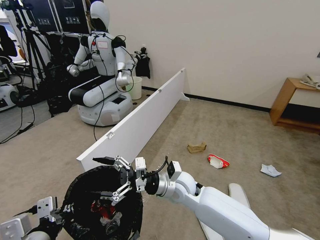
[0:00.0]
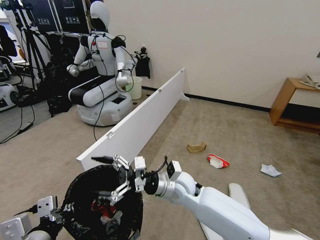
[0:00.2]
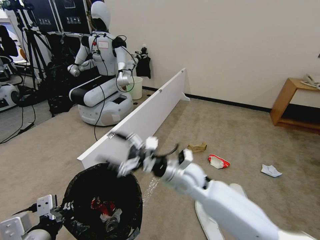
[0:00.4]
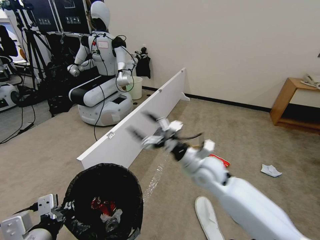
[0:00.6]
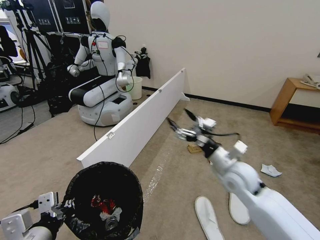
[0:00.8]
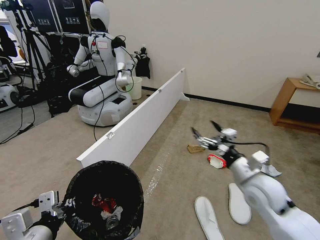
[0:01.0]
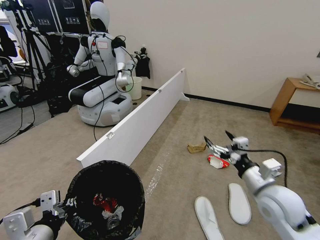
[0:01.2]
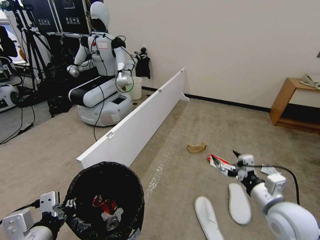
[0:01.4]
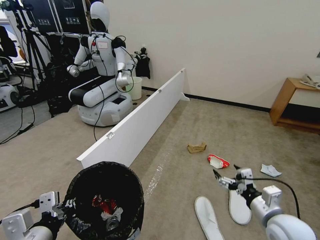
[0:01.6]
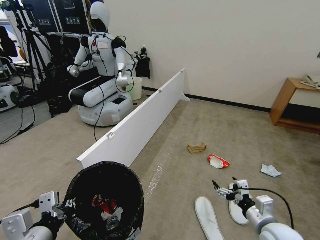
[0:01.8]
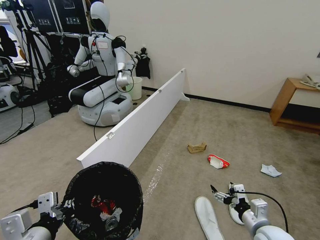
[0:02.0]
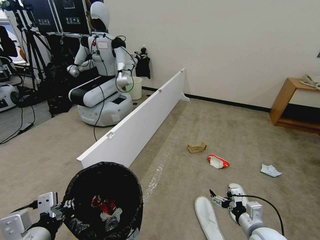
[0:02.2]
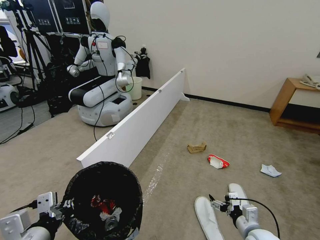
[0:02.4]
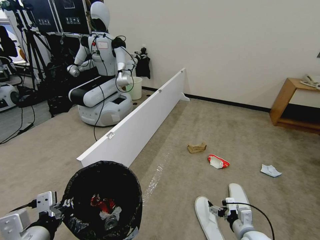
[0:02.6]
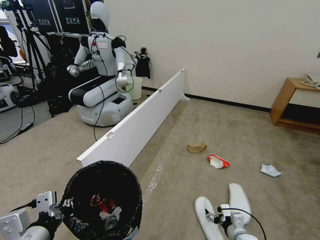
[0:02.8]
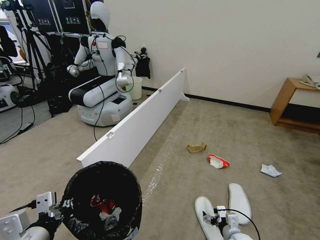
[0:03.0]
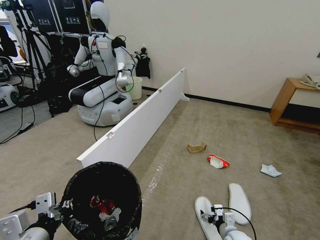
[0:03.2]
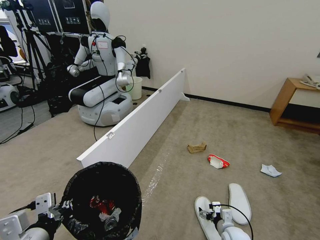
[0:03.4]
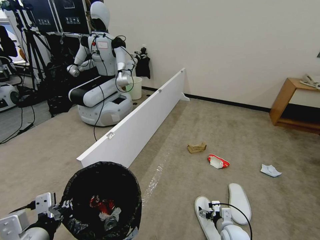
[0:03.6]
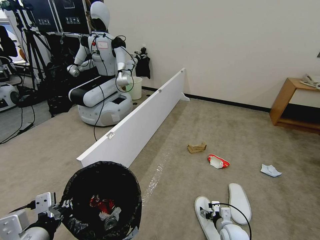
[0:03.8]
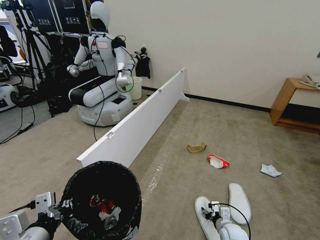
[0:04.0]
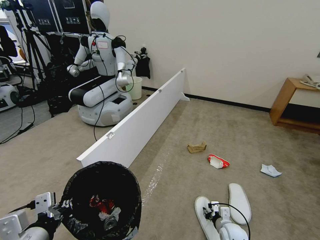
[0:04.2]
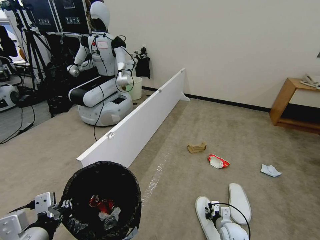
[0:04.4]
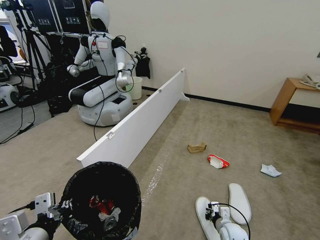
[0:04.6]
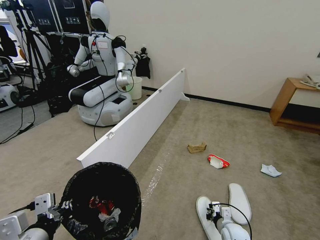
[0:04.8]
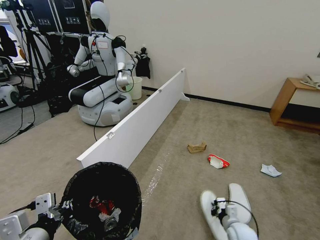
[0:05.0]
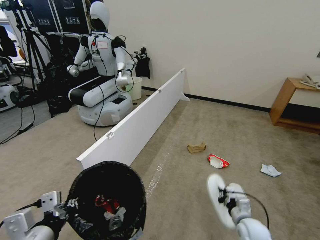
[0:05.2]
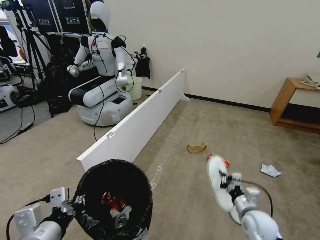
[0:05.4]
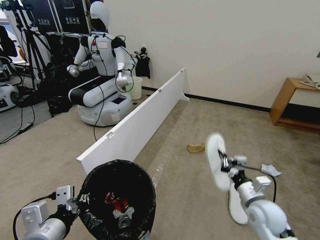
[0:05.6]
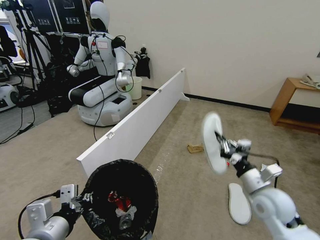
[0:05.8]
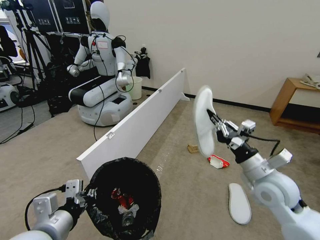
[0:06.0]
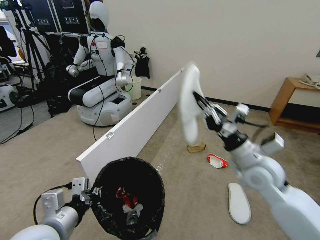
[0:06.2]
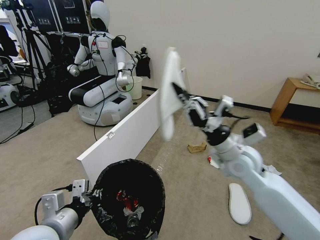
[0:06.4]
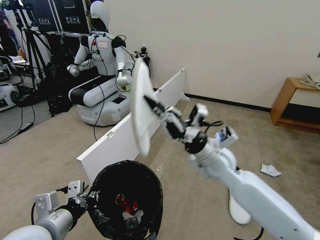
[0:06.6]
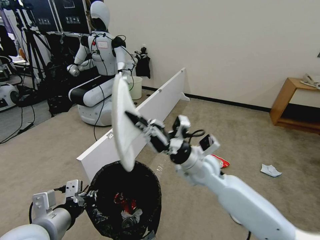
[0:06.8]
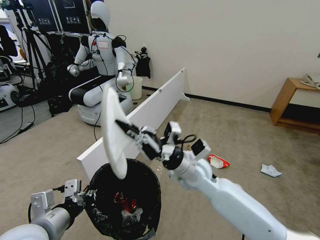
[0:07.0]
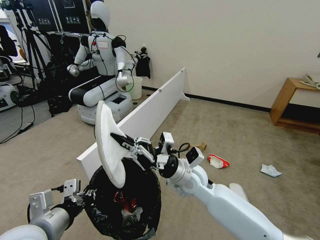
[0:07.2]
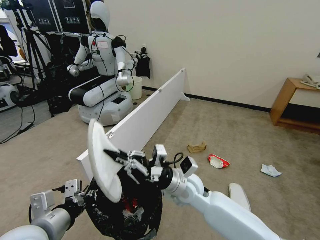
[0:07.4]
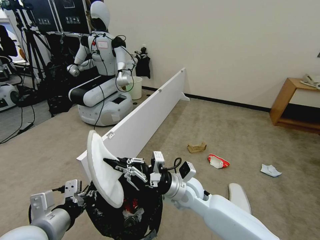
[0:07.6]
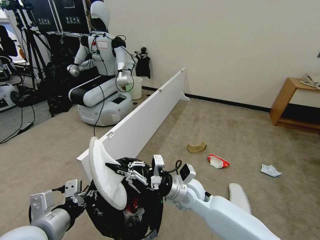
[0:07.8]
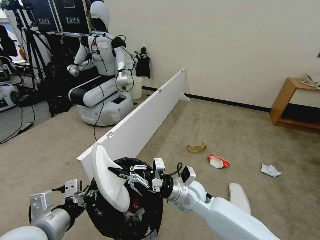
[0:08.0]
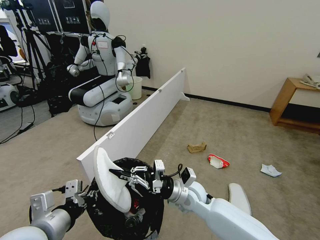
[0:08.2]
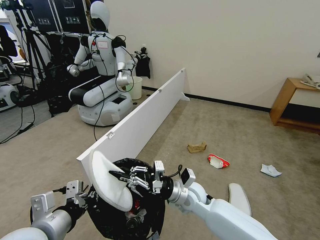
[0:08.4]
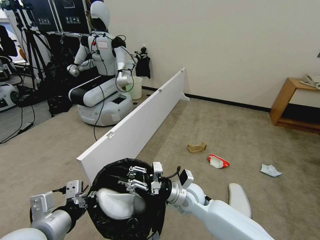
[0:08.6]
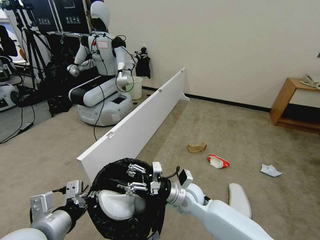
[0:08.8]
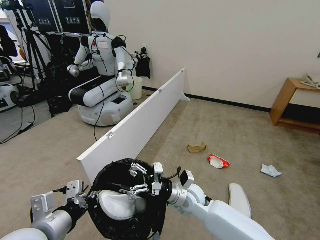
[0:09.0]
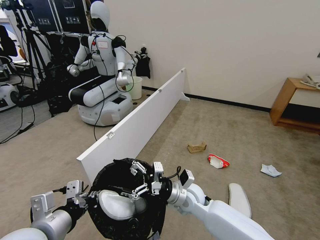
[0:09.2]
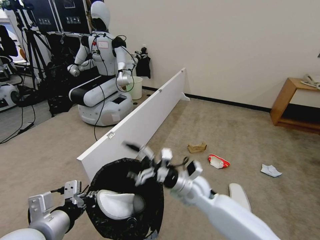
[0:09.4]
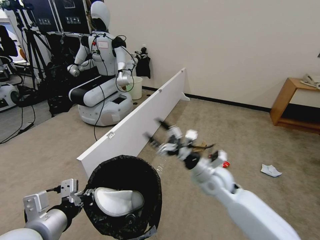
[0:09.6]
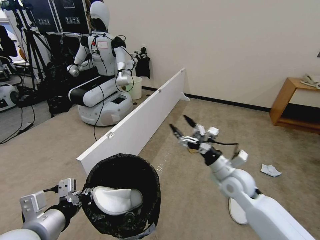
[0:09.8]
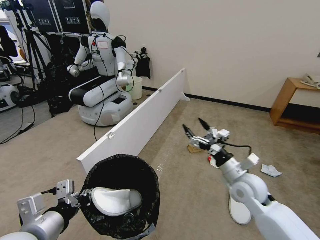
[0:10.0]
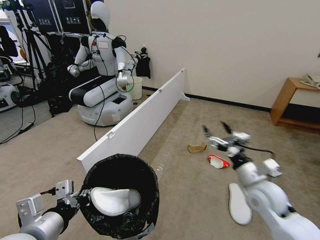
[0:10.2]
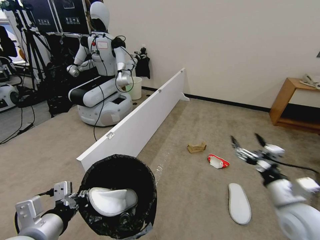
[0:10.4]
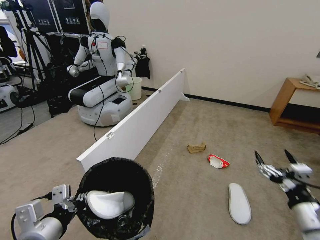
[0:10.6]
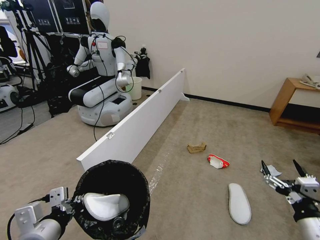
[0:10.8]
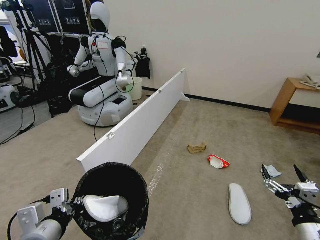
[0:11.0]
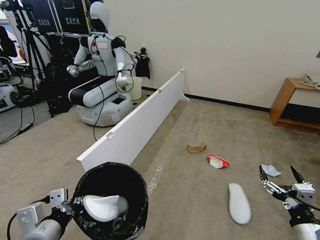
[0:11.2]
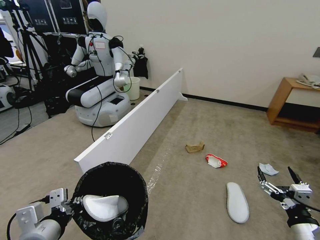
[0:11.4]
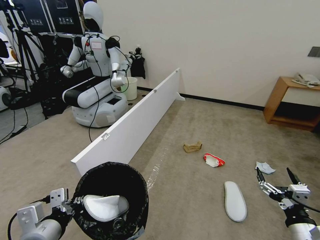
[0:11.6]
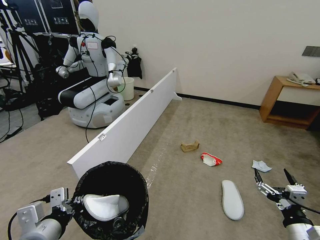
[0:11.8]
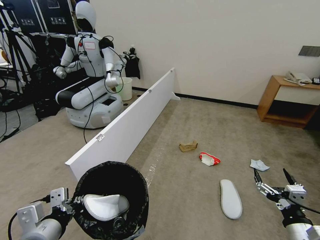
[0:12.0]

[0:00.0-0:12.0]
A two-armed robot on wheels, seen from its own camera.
Task of the whole recording: Pick up the trash bin, then pick up the garbage from the floor and place it into the trash bin.
0:00.0 to 0:01.6: The right gripper travels to the right and backward by some 30 cm.
0:01.6 to 0:03.0: The right gripper goes approximately 20 cm downward.
0:03.0 to 0:04.4: The right gripper shifts by roughly 5 cm, and closes its fingers.
0:04.4 to 0:06.0: The right gripper moves upward, some 35 cm.
0:06.0 to 0:07.6: The right gripper shifts some 25 cm to the left and downward.
0:07.6 to 0:09.0: The right gripper ends up some 5 cm from where it was, and opens.
0:09.0 to 0:10.4: The right gripper shifts some 30 cm to the right and backward.
0:10.4 to 0:12.0: The right gripper travels backward and downward by about 10 cm.

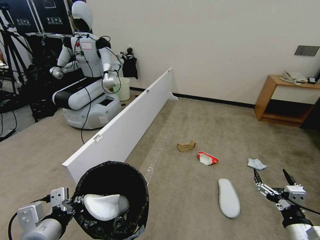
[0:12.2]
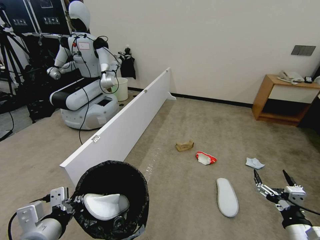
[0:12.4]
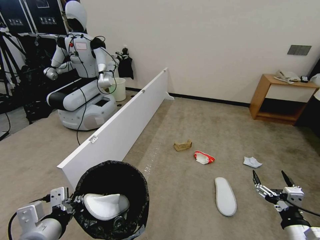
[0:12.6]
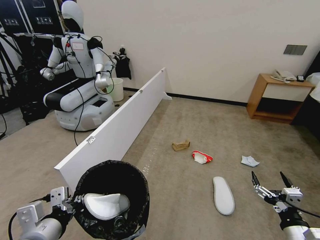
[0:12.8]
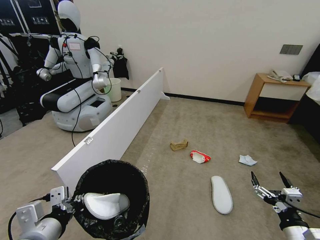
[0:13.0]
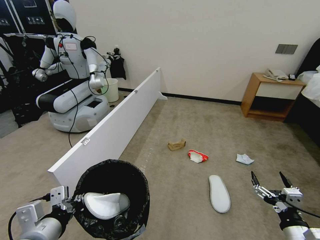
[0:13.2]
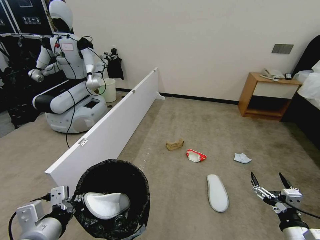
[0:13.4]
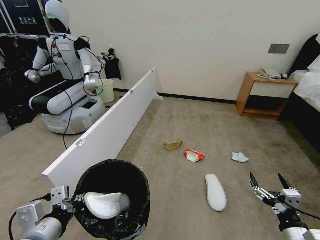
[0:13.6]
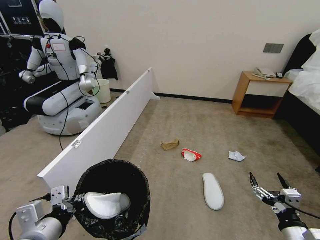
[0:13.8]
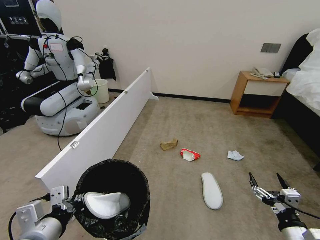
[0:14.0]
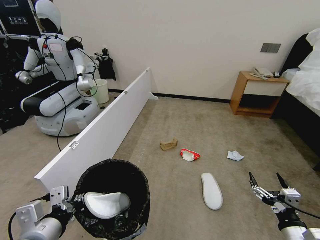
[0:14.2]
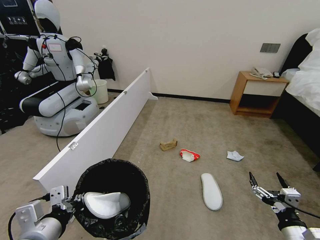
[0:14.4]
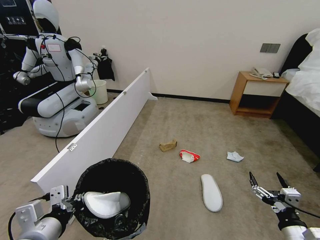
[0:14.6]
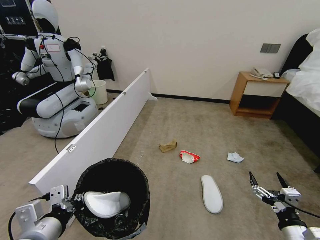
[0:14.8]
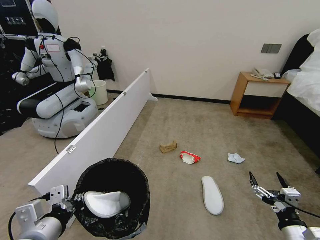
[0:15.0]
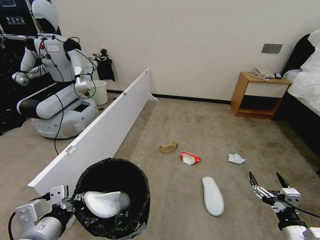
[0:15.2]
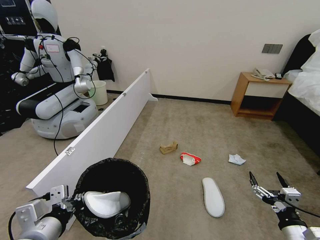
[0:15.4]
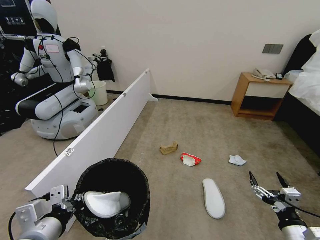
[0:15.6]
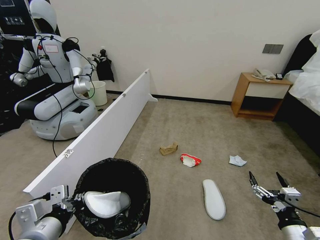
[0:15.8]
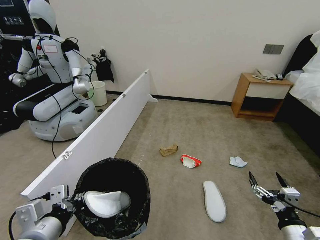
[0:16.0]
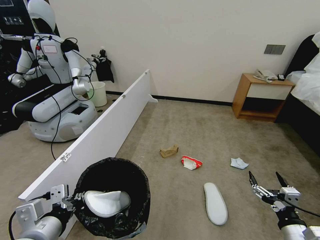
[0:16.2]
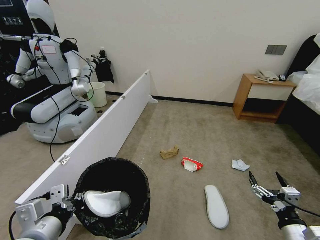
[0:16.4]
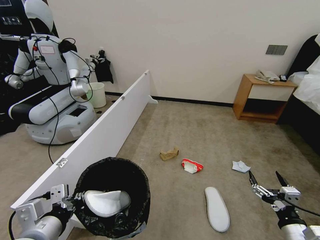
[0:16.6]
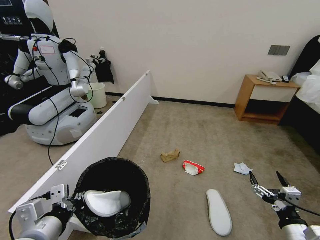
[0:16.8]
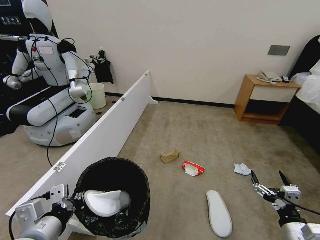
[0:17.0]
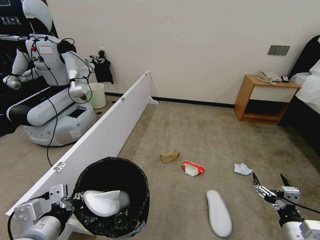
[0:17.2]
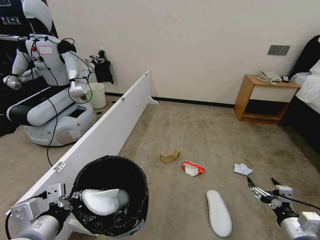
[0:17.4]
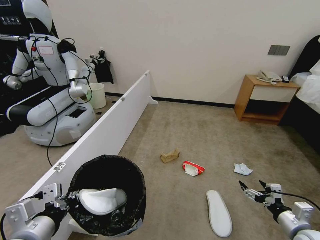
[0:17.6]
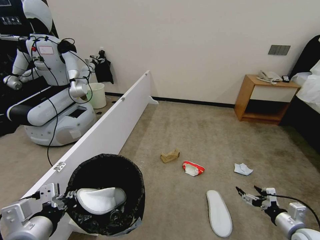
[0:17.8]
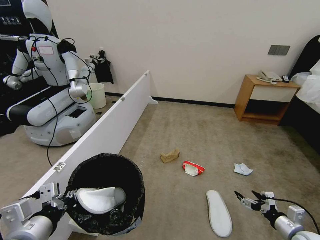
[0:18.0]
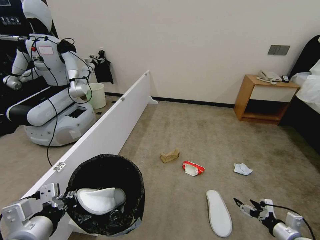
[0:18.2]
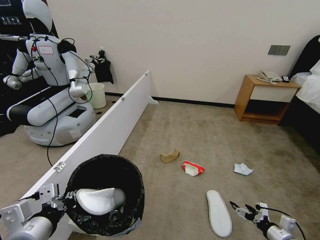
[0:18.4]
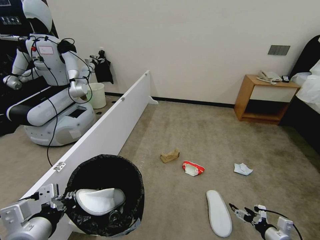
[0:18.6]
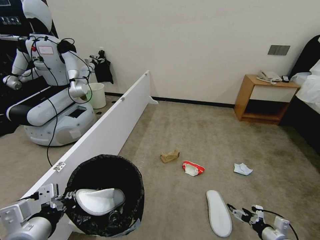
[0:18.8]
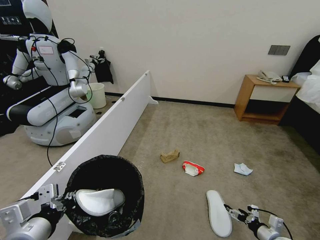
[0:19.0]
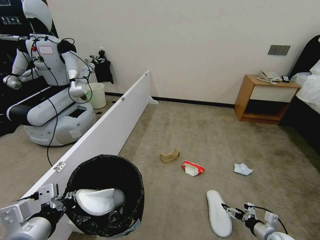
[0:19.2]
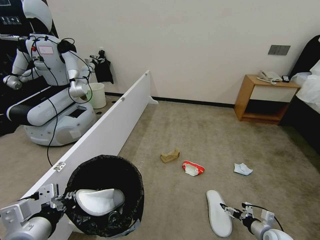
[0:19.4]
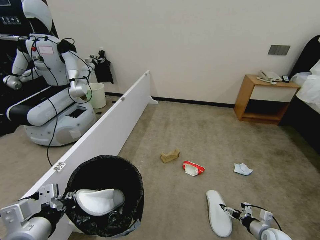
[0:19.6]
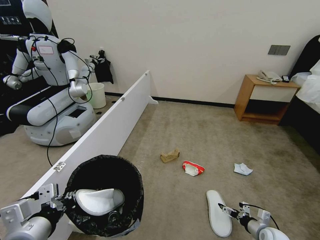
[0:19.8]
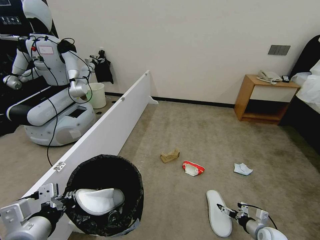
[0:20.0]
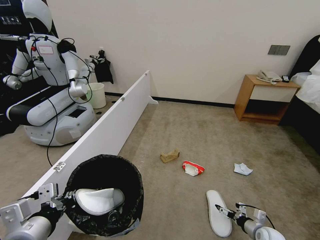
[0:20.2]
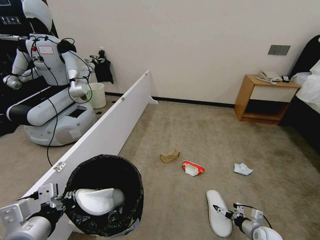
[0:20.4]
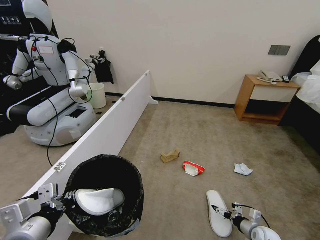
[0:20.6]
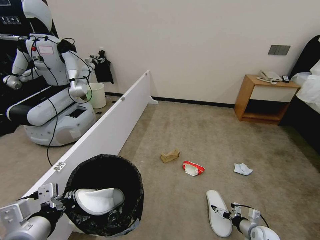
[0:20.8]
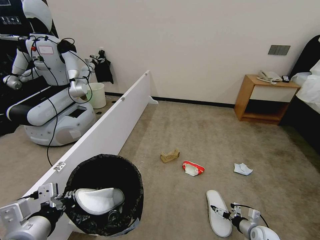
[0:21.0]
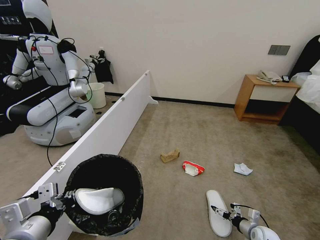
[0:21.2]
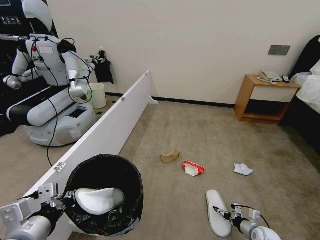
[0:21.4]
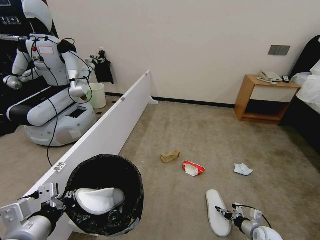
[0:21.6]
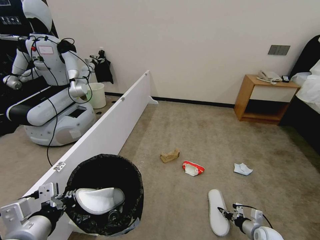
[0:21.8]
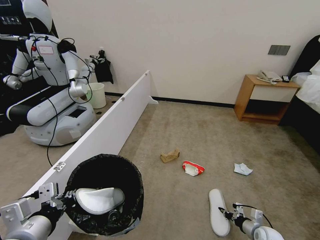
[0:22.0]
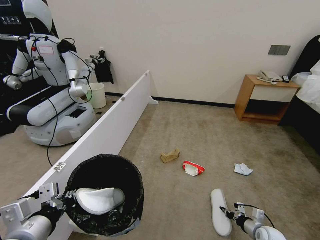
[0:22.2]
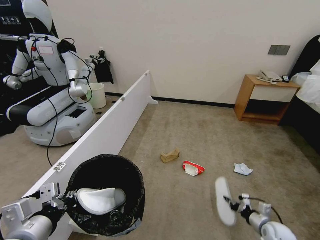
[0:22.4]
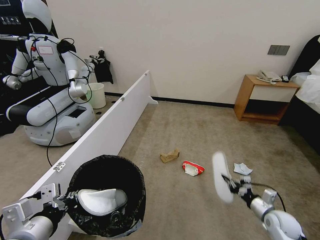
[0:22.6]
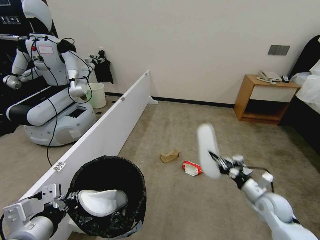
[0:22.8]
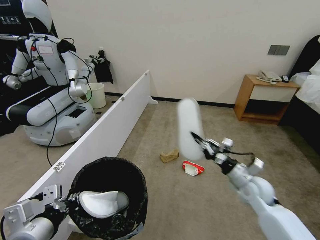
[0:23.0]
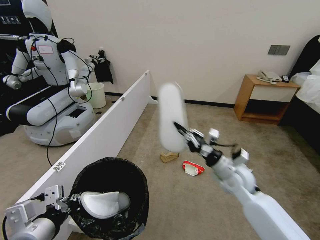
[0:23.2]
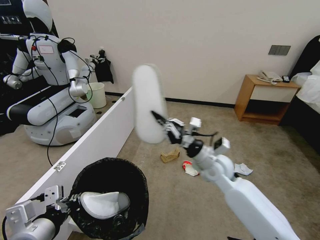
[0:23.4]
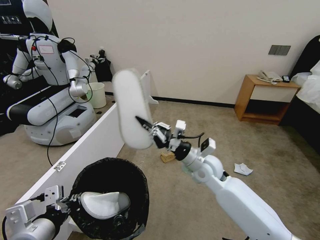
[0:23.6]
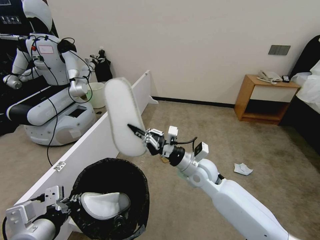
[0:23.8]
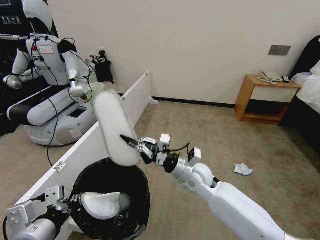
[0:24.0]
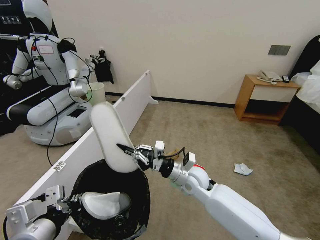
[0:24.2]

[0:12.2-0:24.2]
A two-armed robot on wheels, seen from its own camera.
Task of the whole recording: Pick up the trash bin, then pick up the garbage from the floor and place it into the trash bin.
0:13.8 to 0:16.6: Both grippers stay about where they are.
0:16.6 to 0:18.2: The right gripper goes some 15 cm downward, to the right and forward.
0:18.2 to 0:19.8: The right gripper moves downward and forward, about 10 cm.
0:19.8 to 0:21.2: The grippers move only a little.
0:21.2 to 0:22.6: The right gripper heads upward, covering approximately 10 cm, and closes.
0:22.6 to 0:24.2: The right gripper shifts approximately 35 cm to the left and upward.
